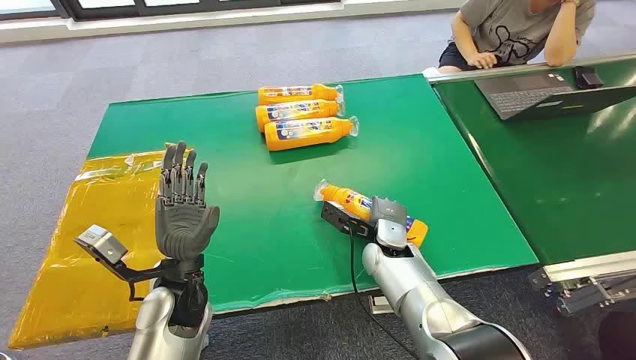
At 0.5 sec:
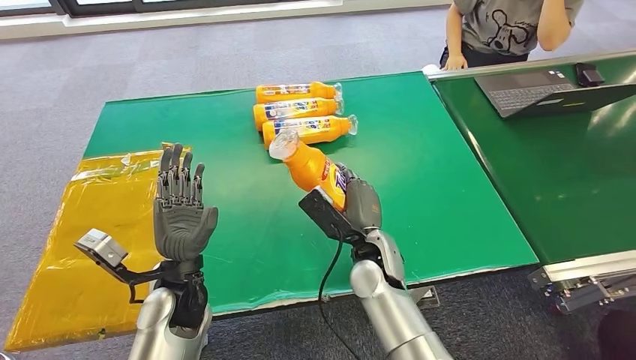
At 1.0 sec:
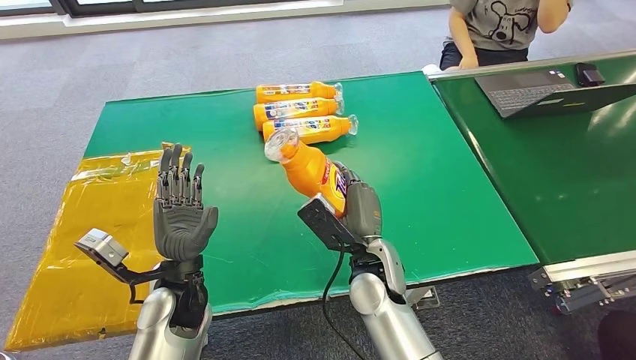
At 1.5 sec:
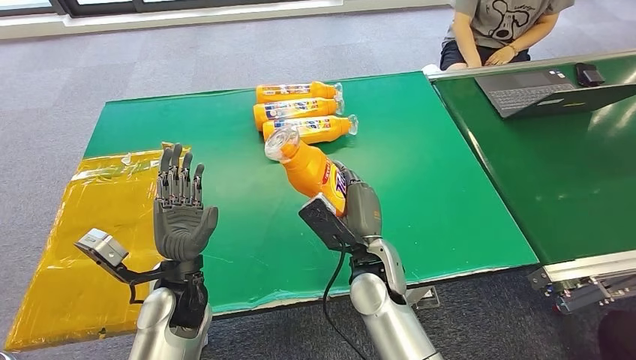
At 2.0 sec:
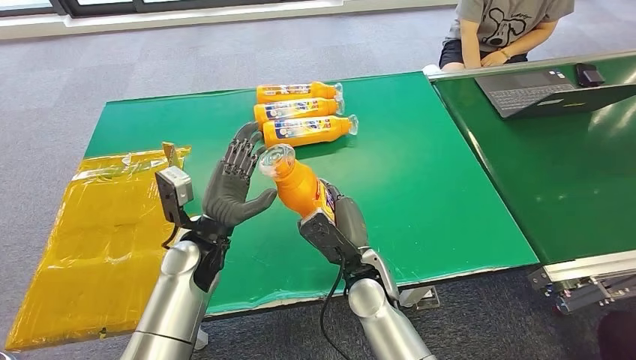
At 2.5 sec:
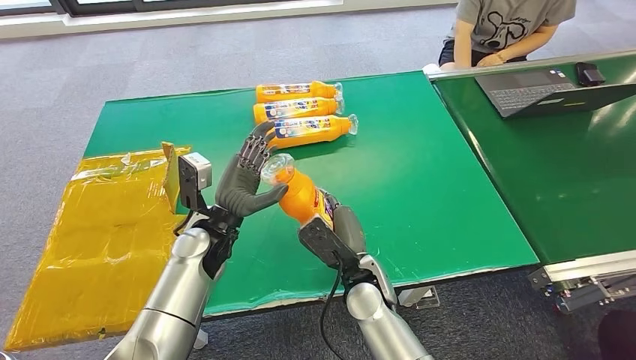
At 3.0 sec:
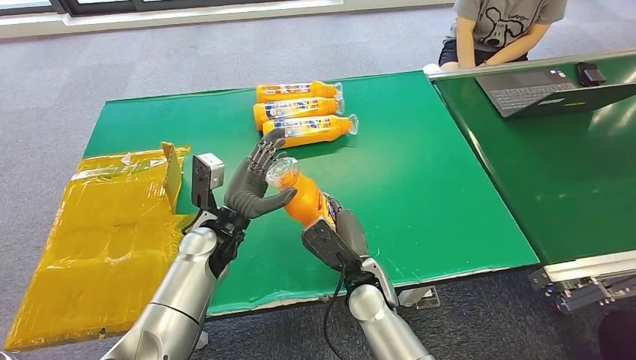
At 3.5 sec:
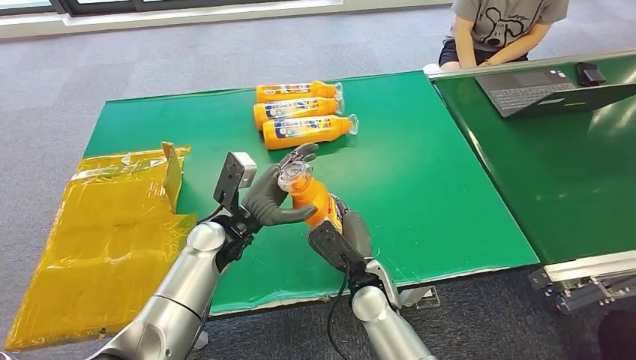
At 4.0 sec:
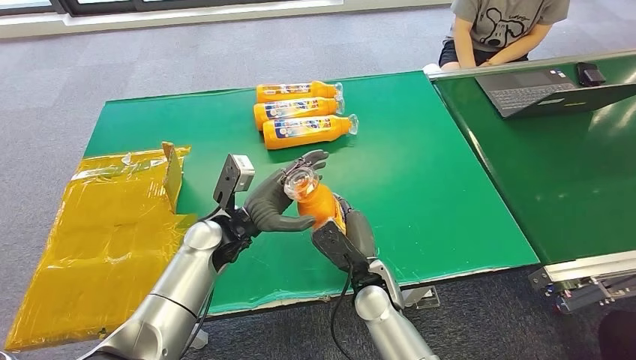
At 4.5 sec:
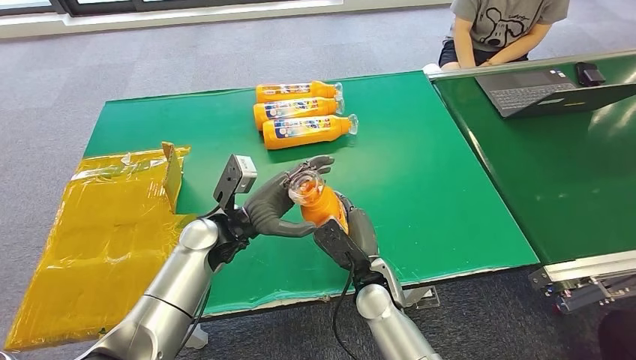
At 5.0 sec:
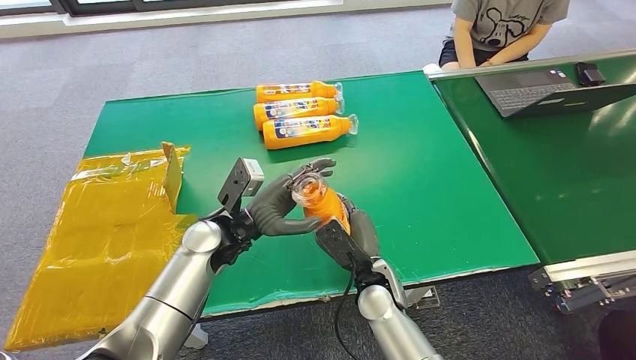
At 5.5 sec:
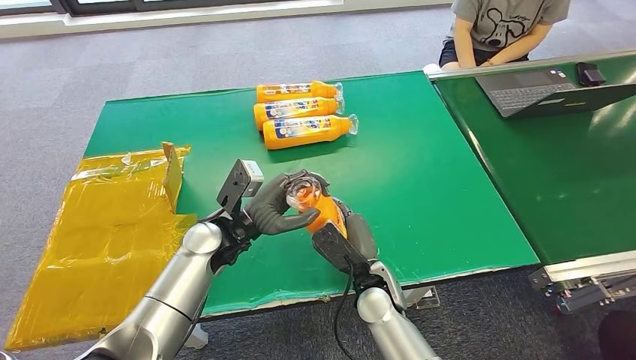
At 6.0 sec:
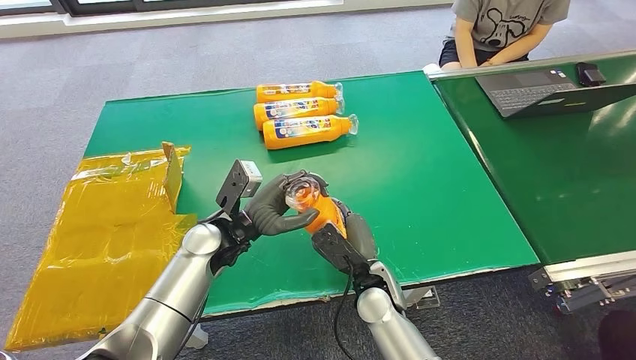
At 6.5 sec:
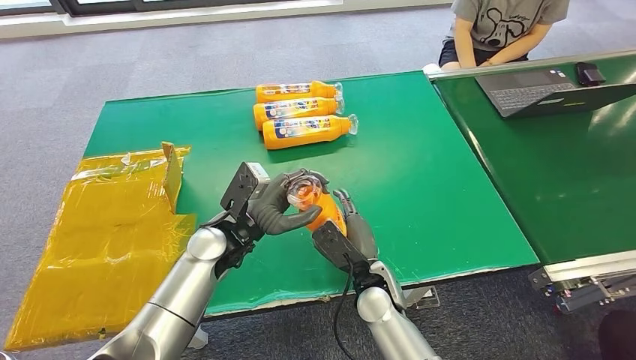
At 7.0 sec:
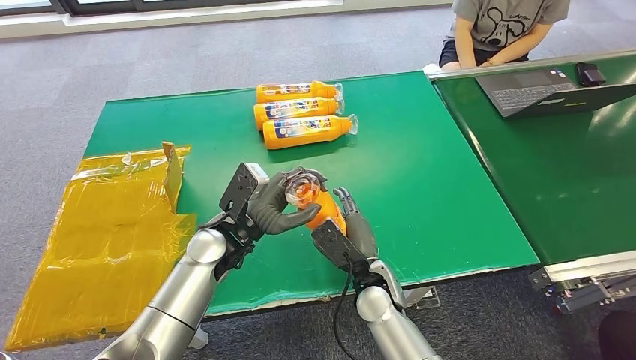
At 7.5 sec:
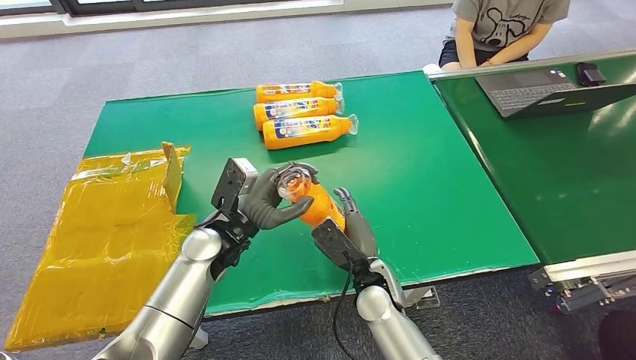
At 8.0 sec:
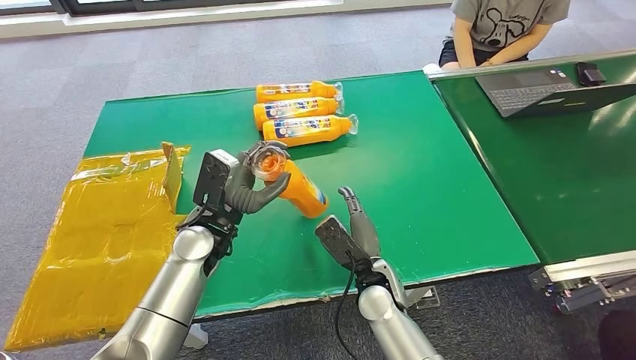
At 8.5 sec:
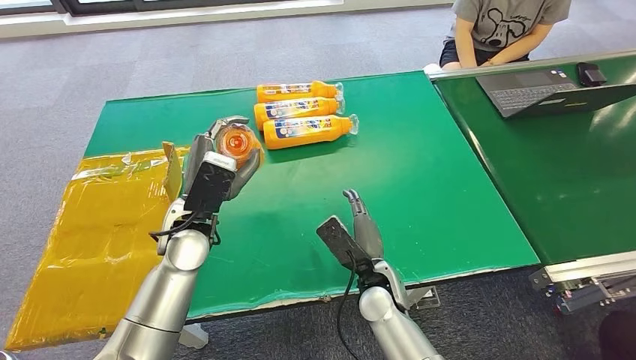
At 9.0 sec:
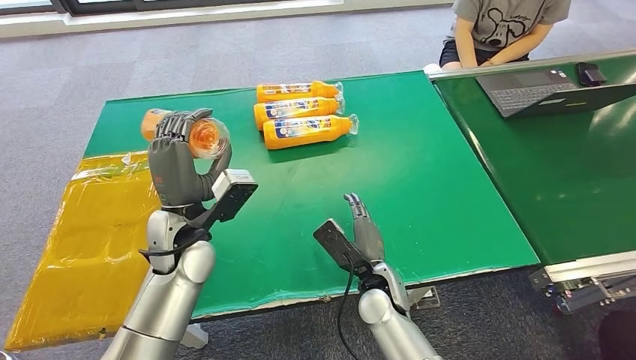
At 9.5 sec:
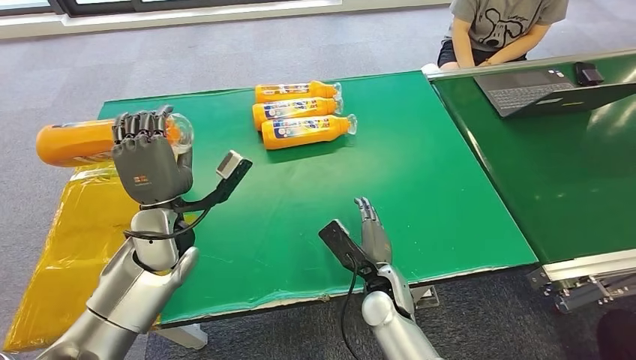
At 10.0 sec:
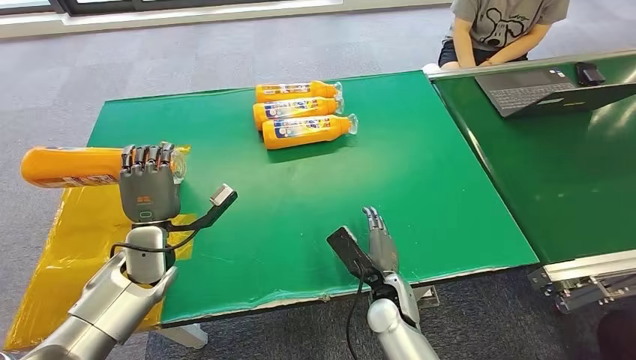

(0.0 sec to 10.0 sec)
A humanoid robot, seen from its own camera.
Step, 0.0 sec - 2.0 sec: Pick up the bottle from the table.
Step, 2.5 sec - 9.5 sec: Turn the bottle to the front side.
4.0 sec - 6.0 sec: The hands make only small movements.
8.0 sec - 10.0 sec: The left hand moves to the left, about 10 cm.

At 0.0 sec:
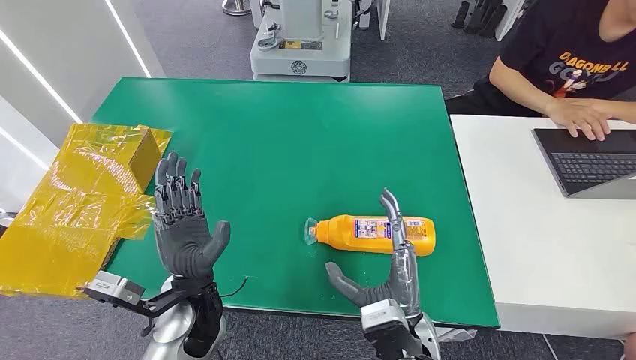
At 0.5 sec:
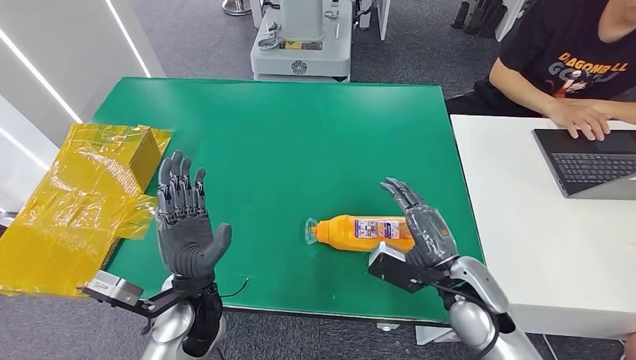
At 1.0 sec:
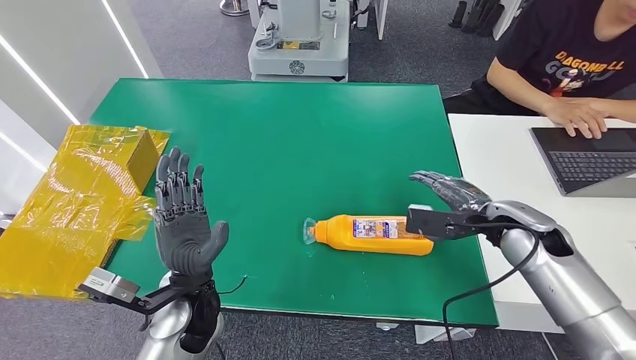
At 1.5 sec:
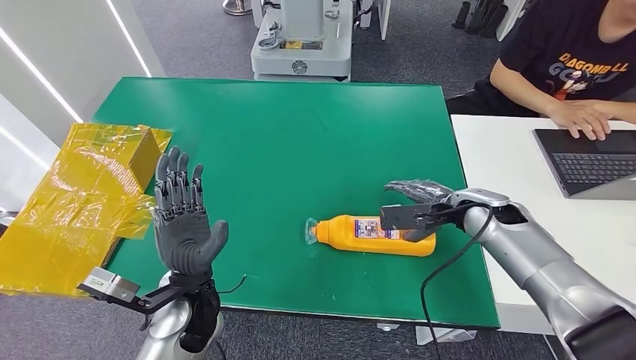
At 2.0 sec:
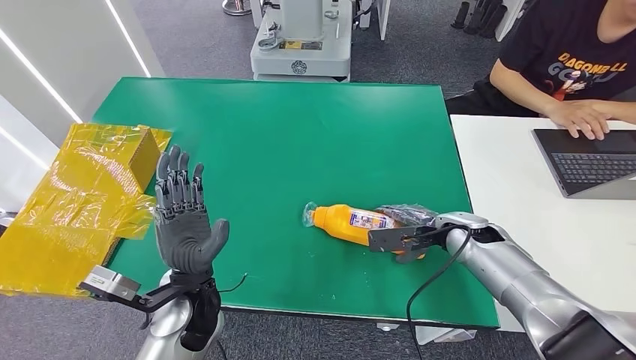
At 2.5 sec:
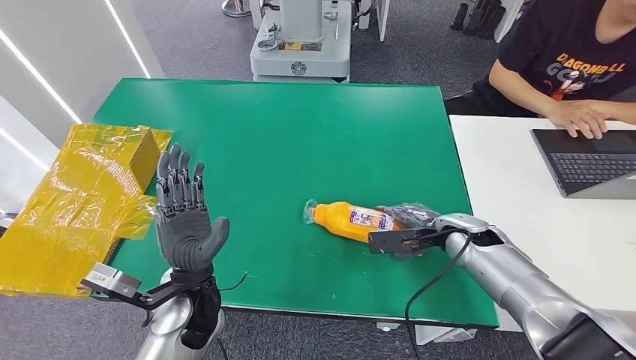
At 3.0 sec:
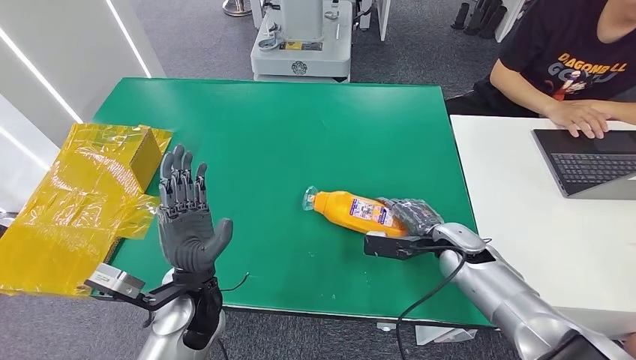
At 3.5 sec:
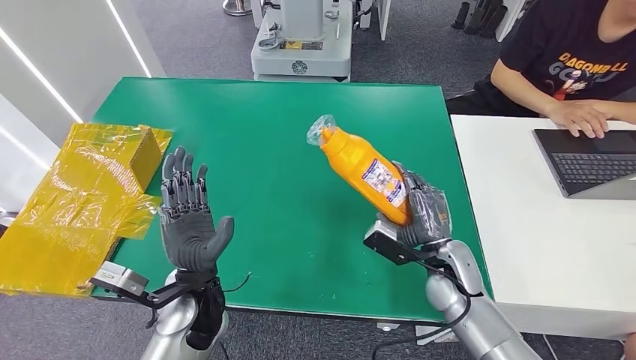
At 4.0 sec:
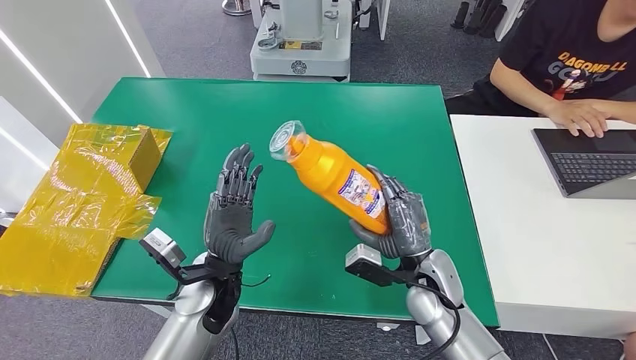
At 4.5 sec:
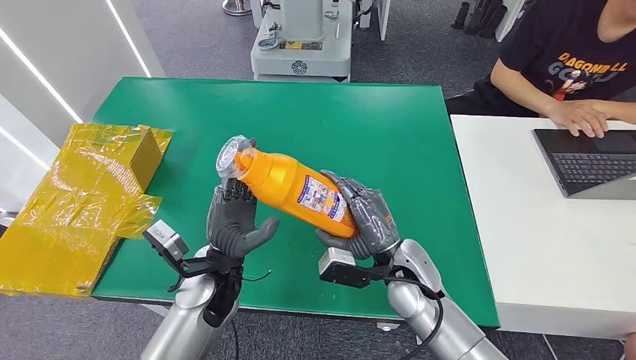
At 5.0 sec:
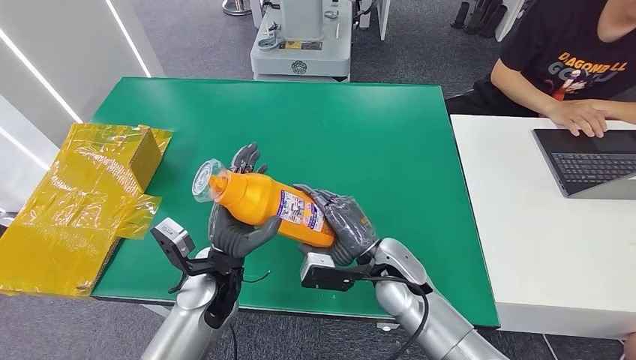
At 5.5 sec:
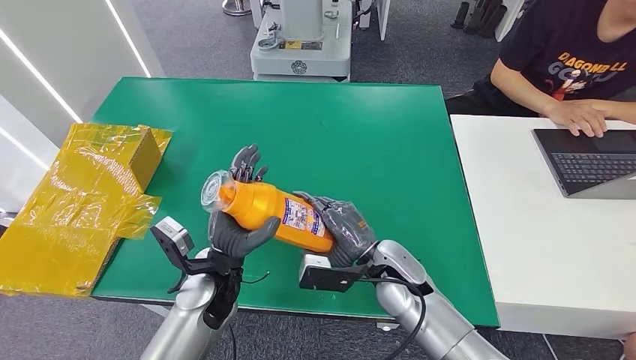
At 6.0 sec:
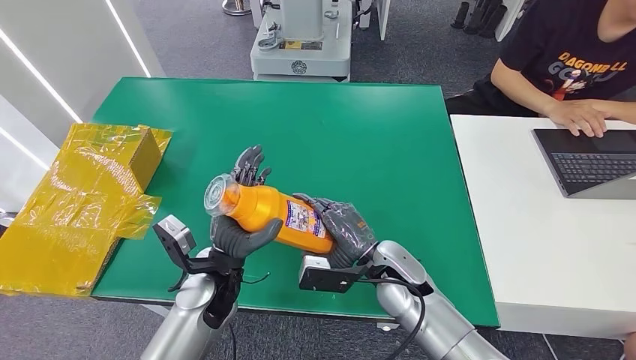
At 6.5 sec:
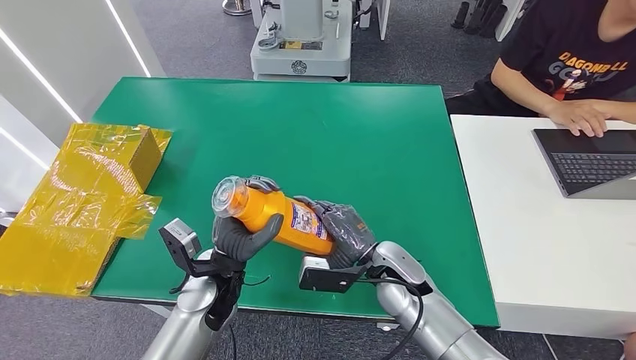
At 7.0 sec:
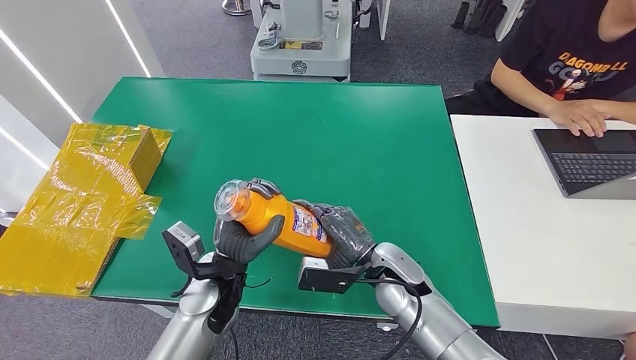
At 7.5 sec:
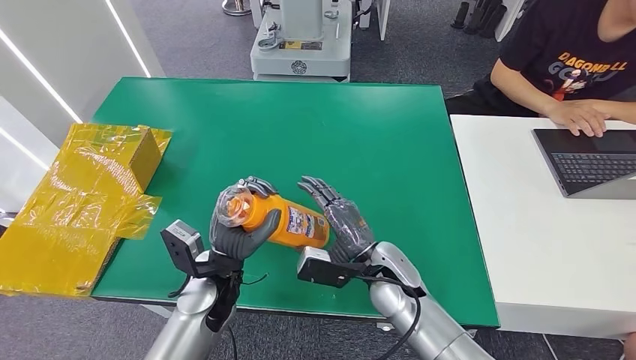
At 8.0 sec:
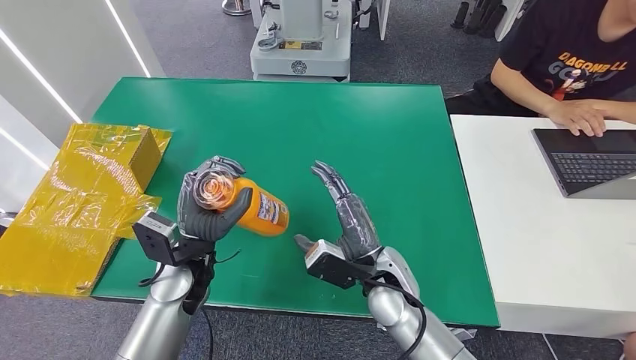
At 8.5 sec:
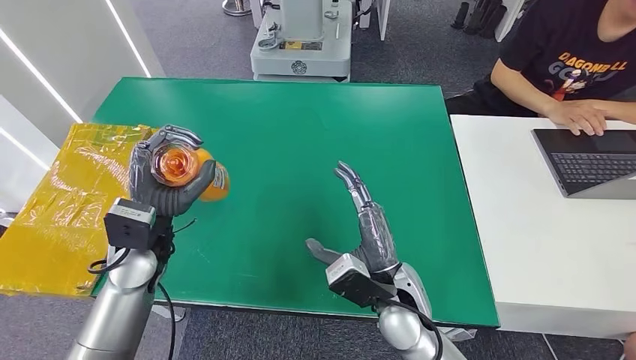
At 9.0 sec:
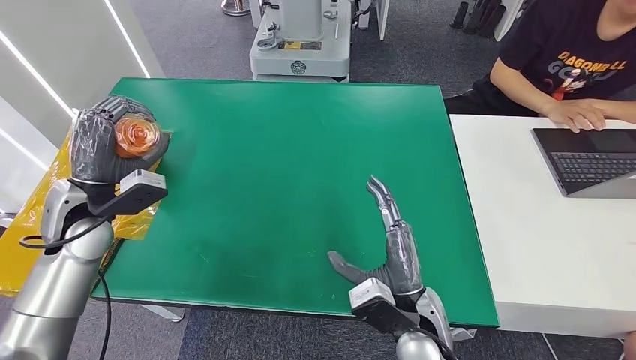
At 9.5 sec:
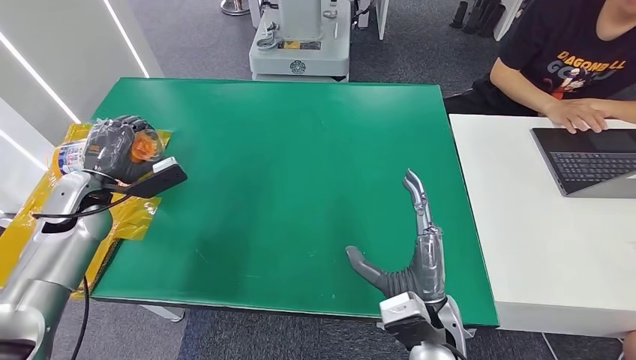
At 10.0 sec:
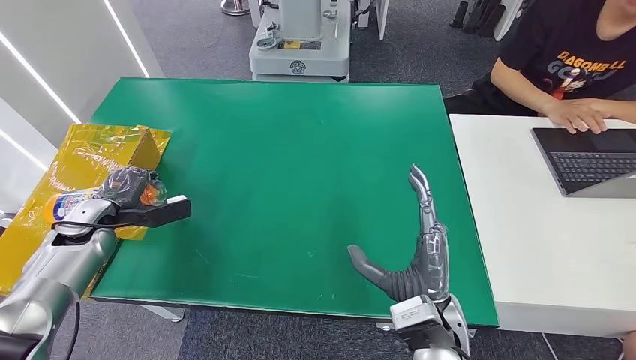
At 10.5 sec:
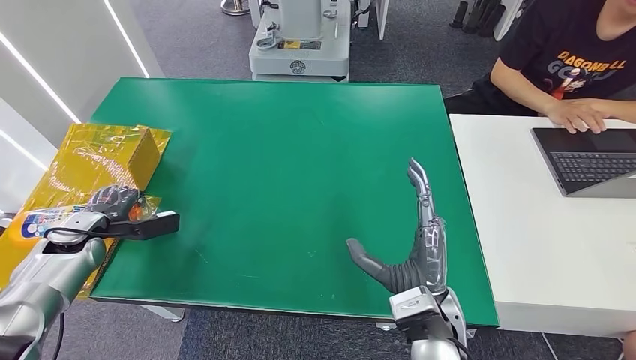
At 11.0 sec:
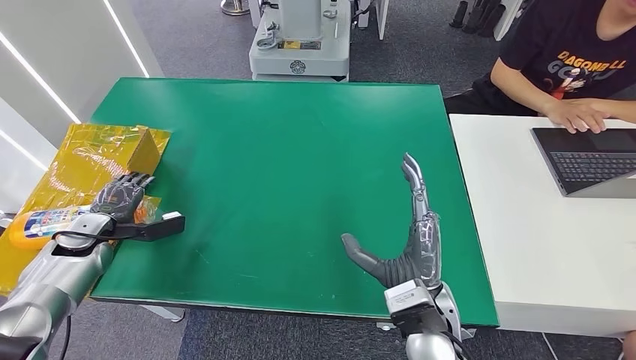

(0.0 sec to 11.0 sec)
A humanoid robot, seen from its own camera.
Step, 0.0 sec - 3.5 sec: Pick up the bottle from the table.
Step, 4.0 sec - 11.0 sec: Turn the bottle to the front side.
2.0 sec - 3.5 sec: The right hand travels backward and to the left by roughly 10 cm.
3.5 sec - 5.5 sec: The right hand heads to the left, covering approximately 10 cm.
5.5 sec - 7.5 sec: The hands move only a little.
7.5 sec - 9.0 sec: The right hand heads backward, covering some 10 cm. Meanwhile the left hand is displaced to the left and upward by roughly 25 cm.
9.0 sec - 11.0 sec: The left hand is displaced downward and to the left by about 15 cm.
